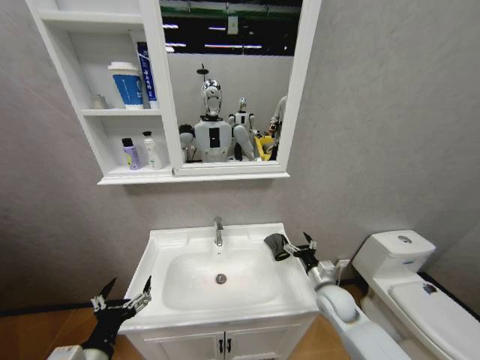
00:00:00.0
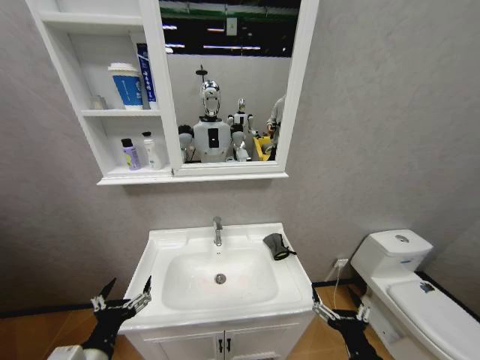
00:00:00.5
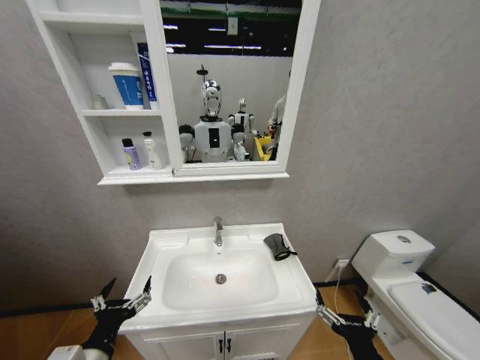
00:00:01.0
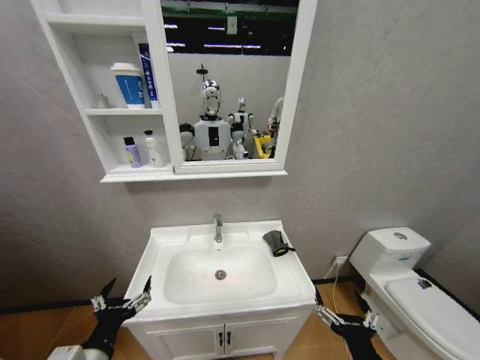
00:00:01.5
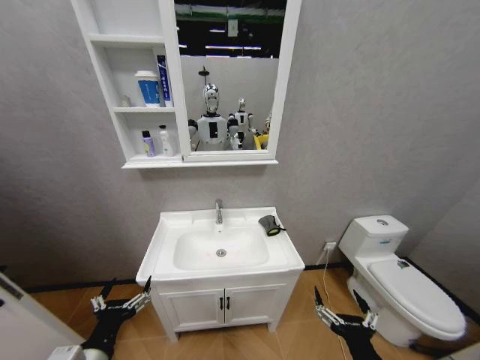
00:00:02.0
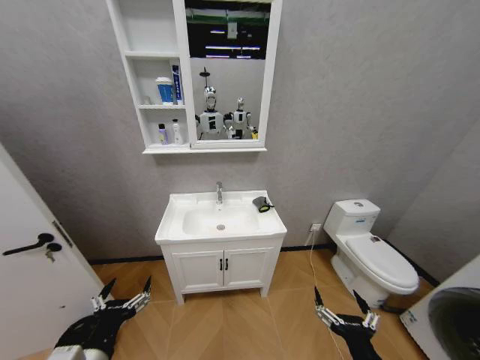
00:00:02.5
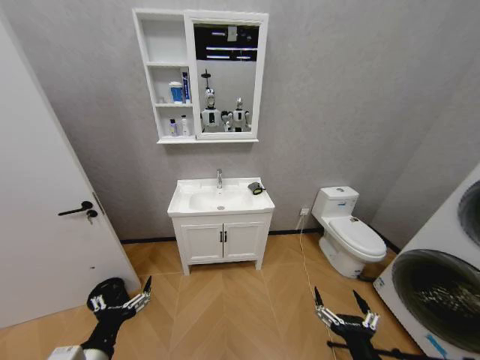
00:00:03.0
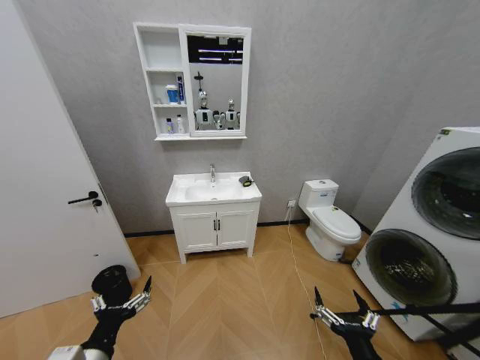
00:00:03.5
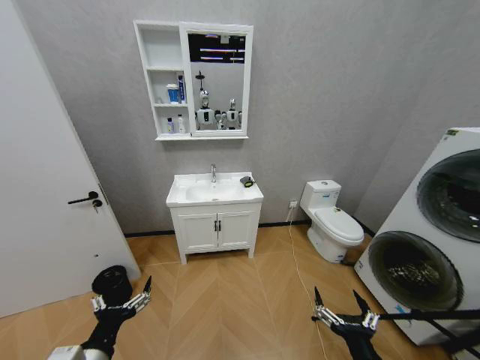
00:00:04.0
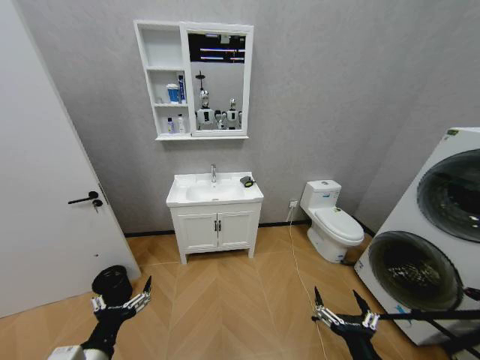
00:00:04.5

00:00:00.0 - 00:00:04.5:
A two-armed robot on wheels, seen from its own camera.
Task of the whole recording: Move facial cleanser and shampoo from washbasin to cabinet, then wipe washbasin with towel.
00:00:00.0 - 00:00:02.0: The right gripper travels backward by some 25 cm.

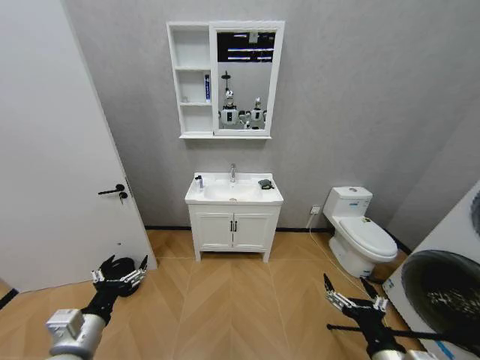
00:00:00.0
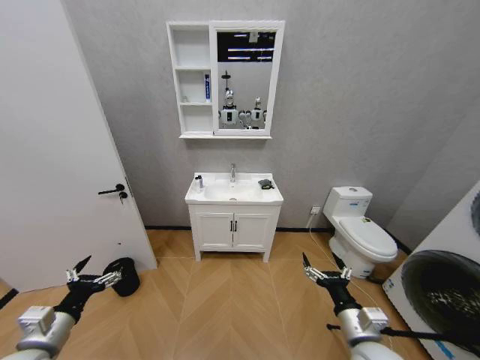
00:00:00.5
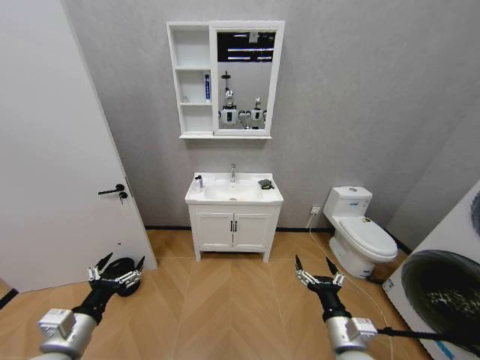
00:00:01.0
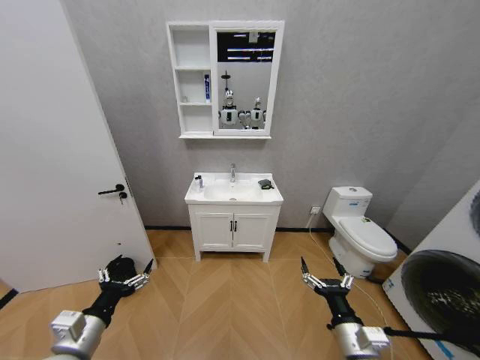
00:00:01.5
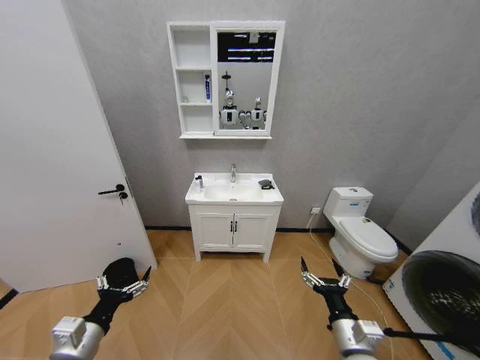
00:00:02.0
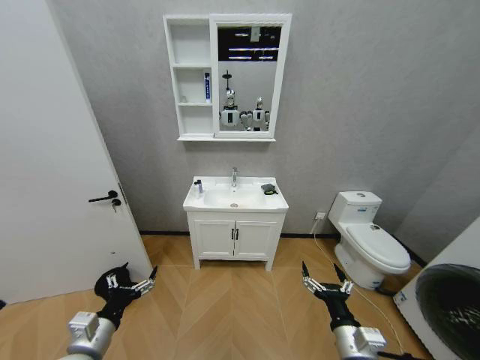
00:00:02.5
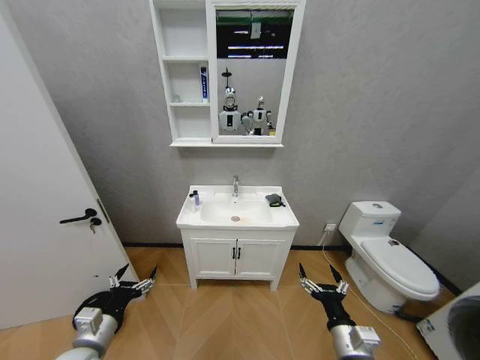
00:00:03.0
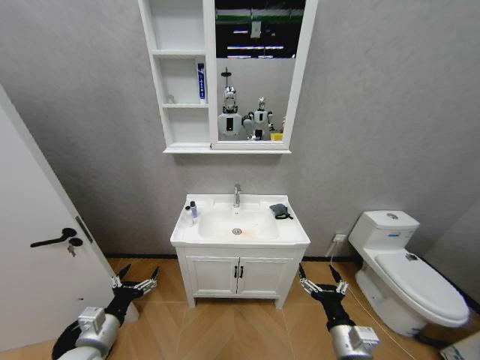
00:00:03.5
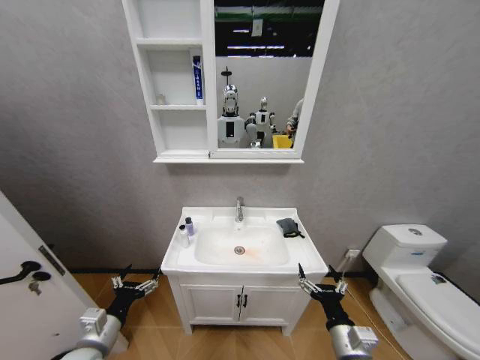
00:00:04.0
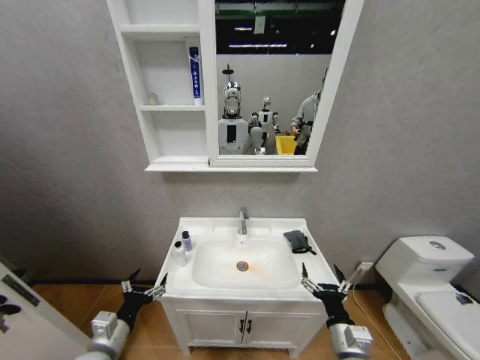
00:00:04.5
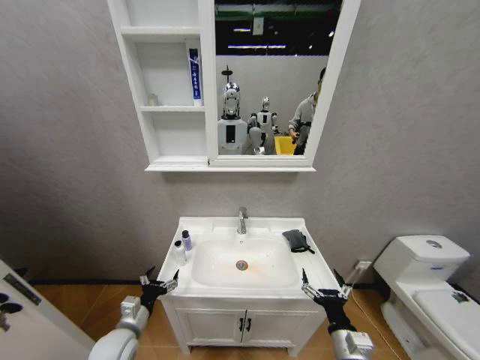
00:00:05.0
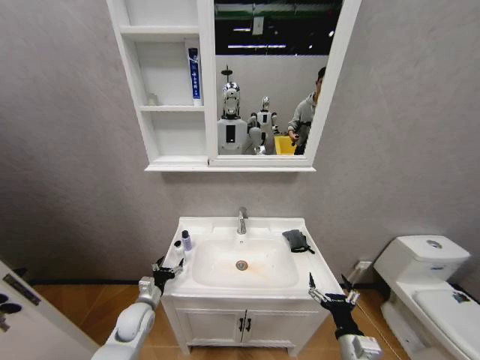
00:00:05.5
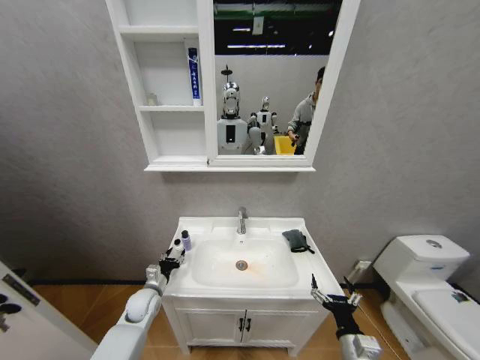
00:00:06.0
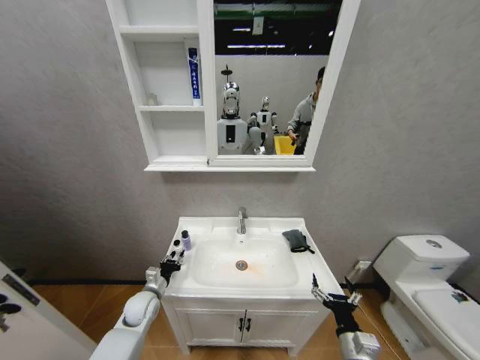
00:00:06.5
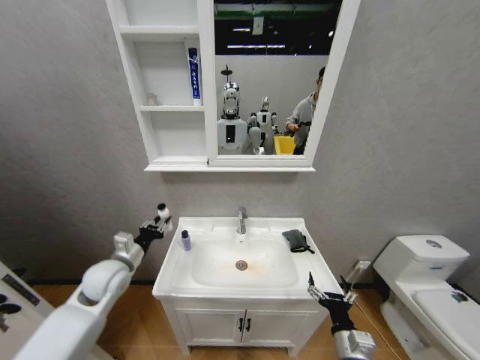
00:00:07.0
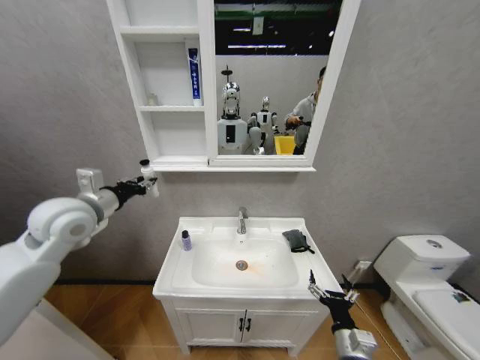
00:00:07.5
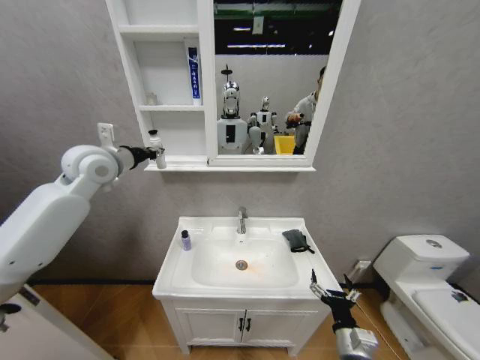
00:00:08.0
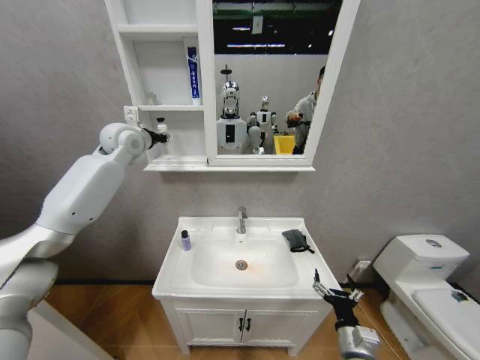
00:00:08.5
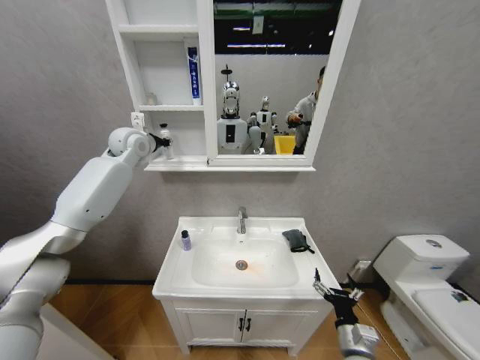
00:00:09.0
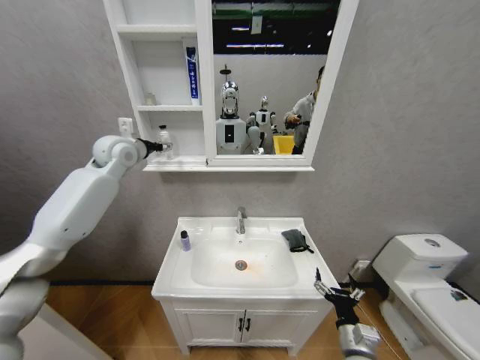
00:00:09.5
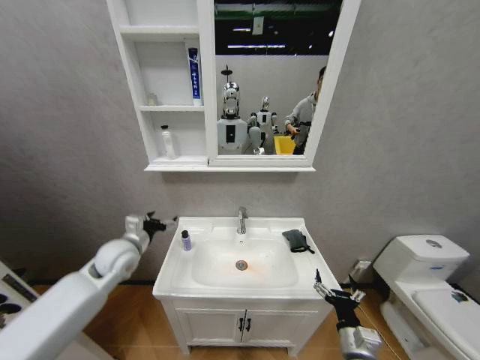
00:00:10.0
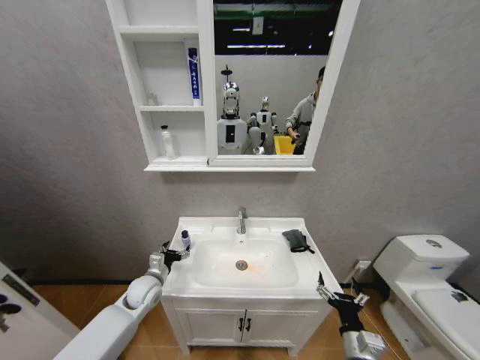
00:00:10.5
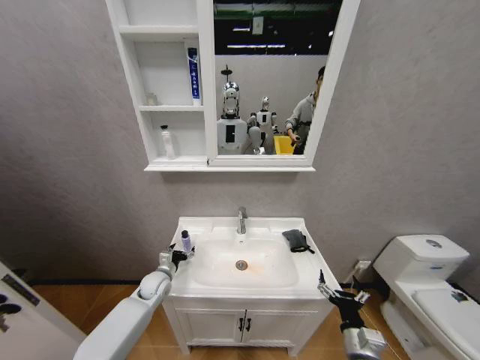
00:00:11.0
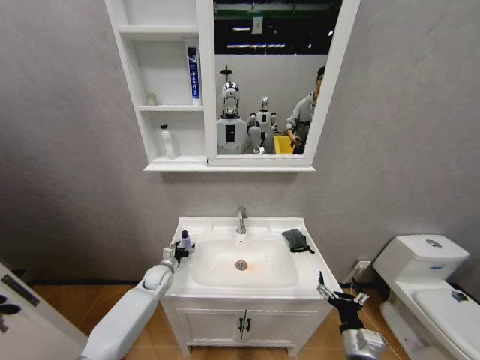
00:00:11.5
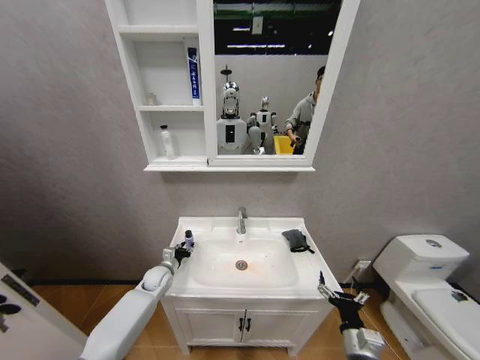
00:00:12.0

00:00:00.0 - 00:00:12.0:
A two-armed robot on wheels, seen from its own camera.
Task of the whole recording: Move facial cleanser and shampoo from washbasin to cabinet, then wipe washbasin with towel.
00:00:02.0 - 00:00:04.0: The left gripper changes place by some 5 cm.
00:00:04.0 - 00:00:06.0: The left gripper travels forward and downward by approximately 20 cm, and closes up.
00:00:06.0 - 00:00:08.0: The left gripper moves upward, roughly 40 cm, and closes its fingers.
00:00:08.0 - 00:00:10.0: The left gripper goes roughly 25 cm downward, and opens its fingers.
00:00:10.0 - 00:00:12.0: The left gripper goes some 20 cm downward, and closes its fingers.

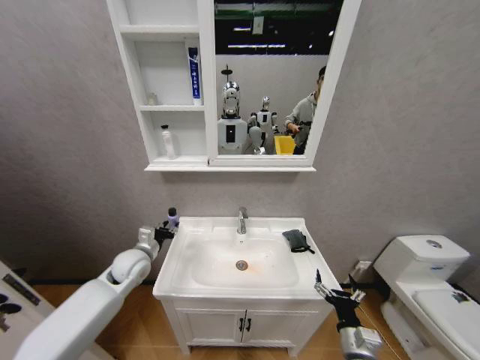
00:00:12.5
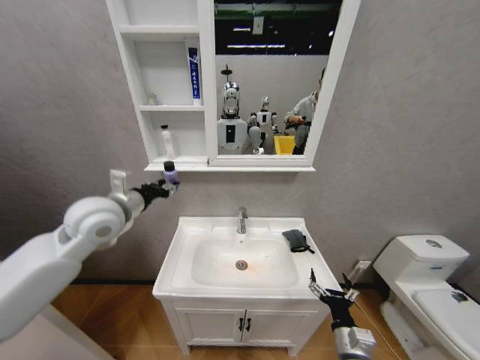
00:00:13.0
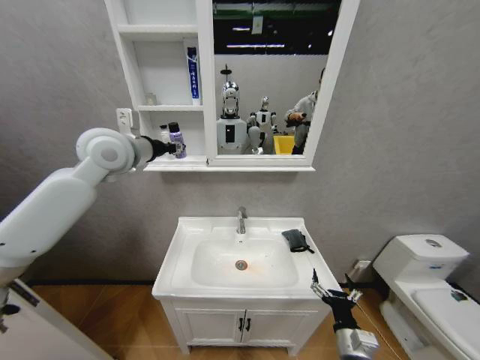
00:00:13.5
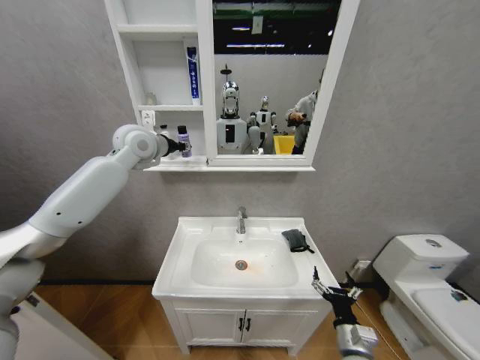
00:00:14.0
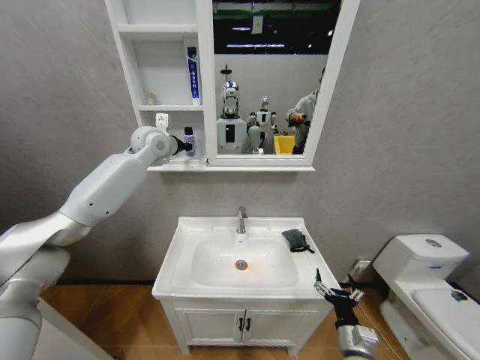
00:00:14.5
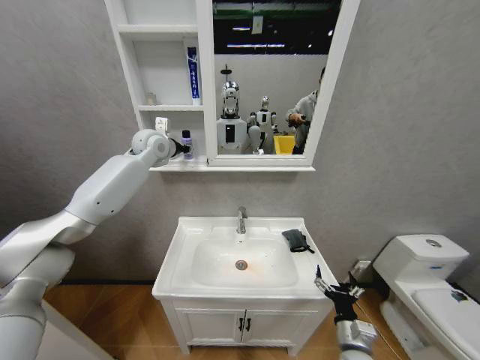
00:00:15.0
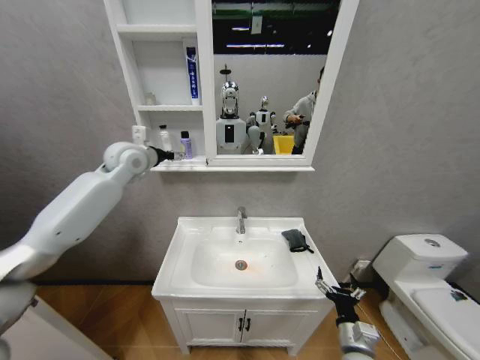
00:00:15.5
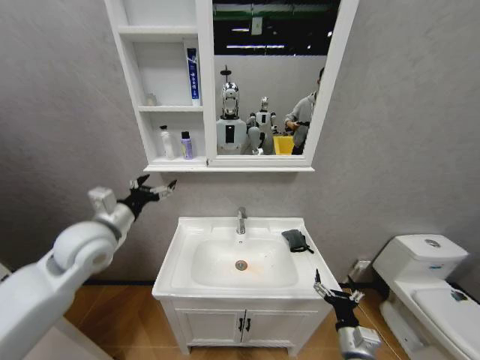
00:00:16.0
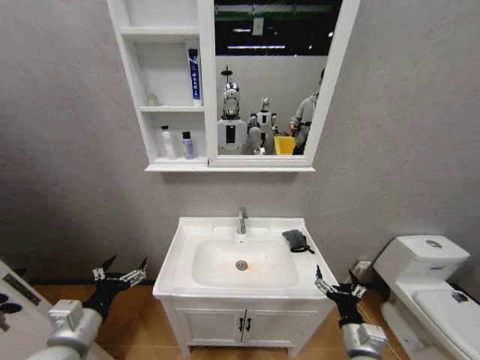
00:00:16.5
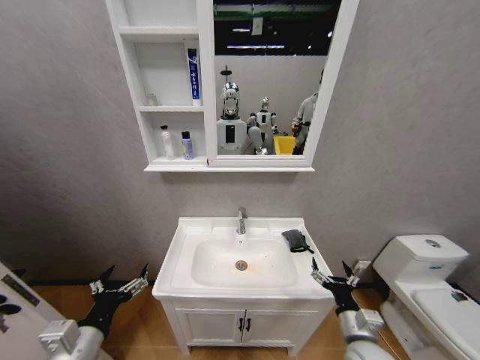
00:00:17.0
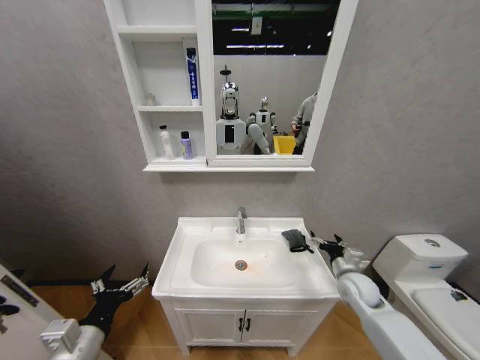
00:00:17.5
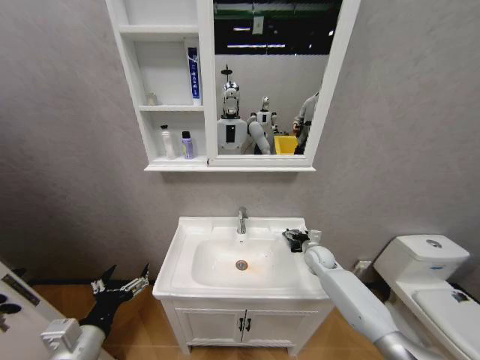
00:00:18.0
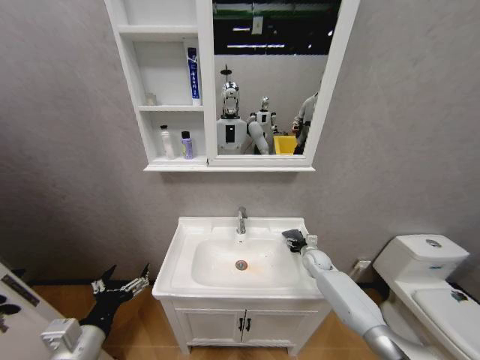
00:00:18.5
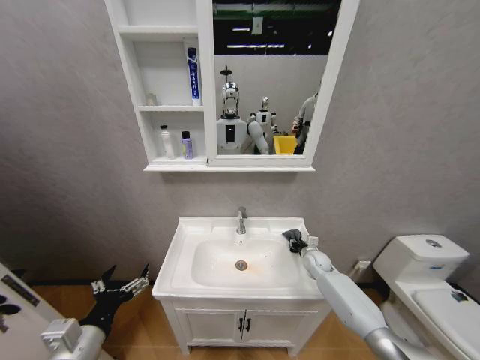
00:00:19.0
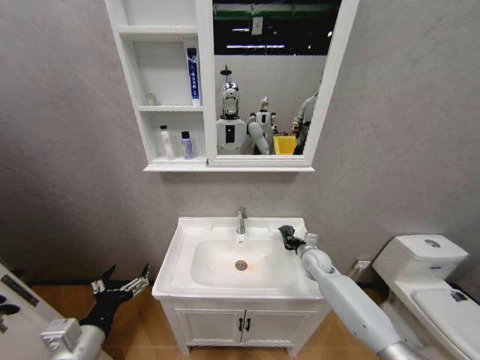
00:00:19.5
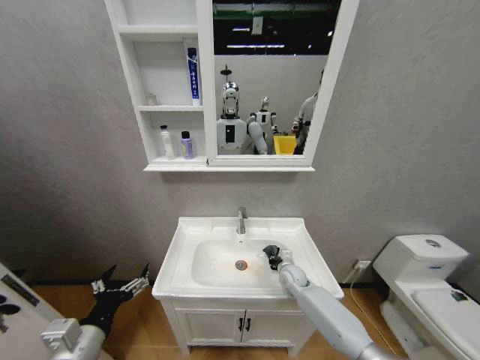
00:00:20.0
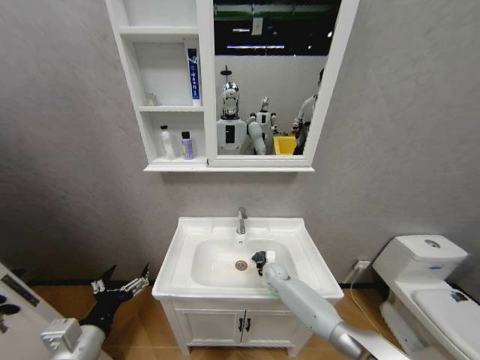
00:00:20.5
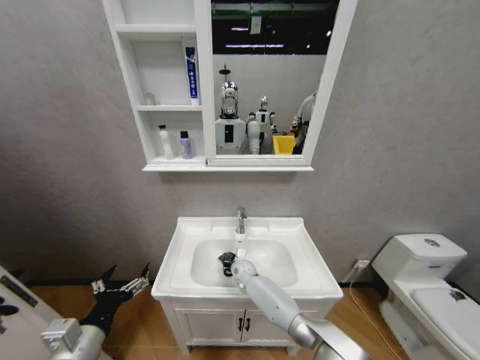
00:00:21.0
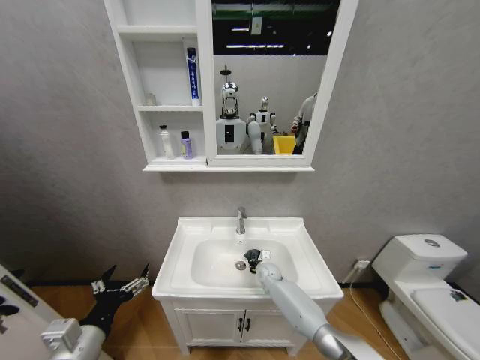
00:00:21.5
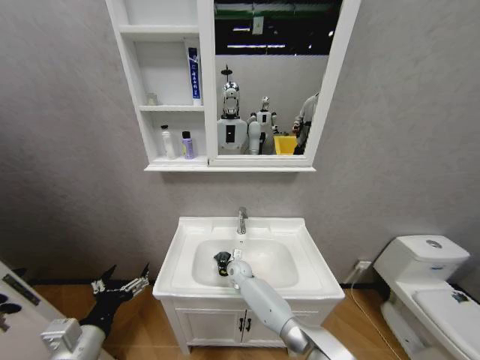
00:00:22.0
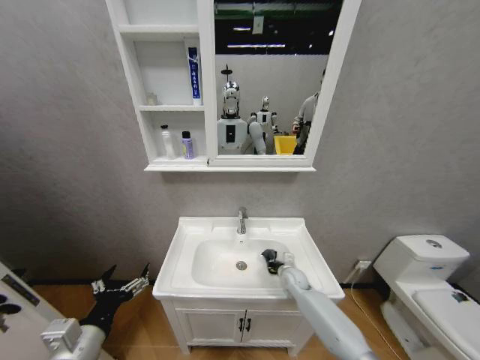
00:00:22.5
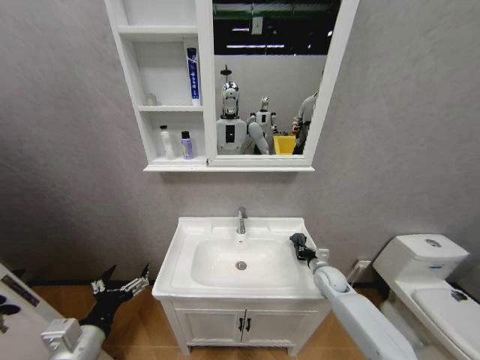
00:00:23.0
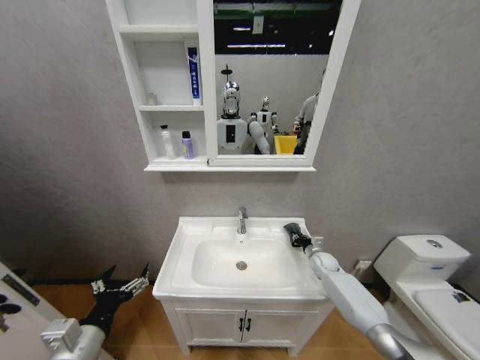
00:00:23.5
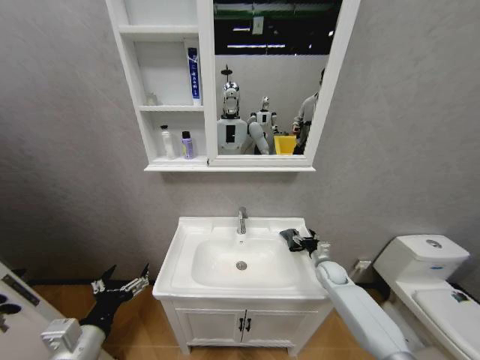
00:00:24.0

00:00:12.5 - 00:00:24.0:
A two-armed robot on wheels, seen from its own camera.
Task of the whole recording: Move facial cleanser and shampoo from washbasin to cabinet, then wipe washbasin with towel.
00:00:12.5 - 00:00:14.5: The left gripper travels upward and forward by roughly 35 cm.
00:00:14.5 - 00:00:16.5: The left gripper shifts roughly 50 cm backward and downward, and opens up.
00:00:16.5 - 00:00:18.5: The right gripper is displaced forward by roughly 35 cm.
00:00:18.5 - 00:00:20.0: The right gripper is displaced to the left and backward by some 10 cm, and closes its fingers.
00:00:20.0 - 00:00:22.0: The right gripper swings left and right, approximately 20 cm each way, with 2 reversals.
00:00:22.0 - 00:00:24.0: The right gripper moves to the right, some 35 cm, and opens.
